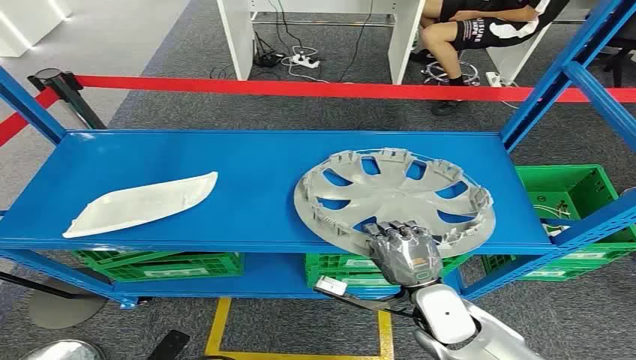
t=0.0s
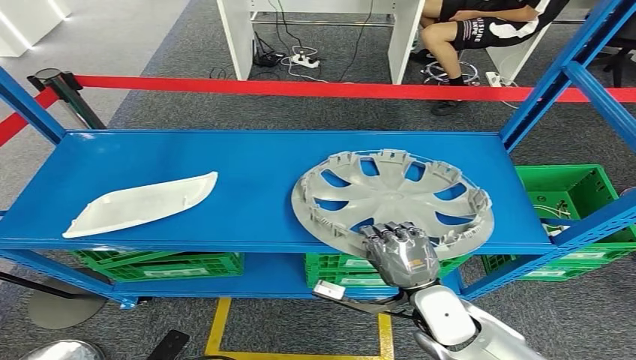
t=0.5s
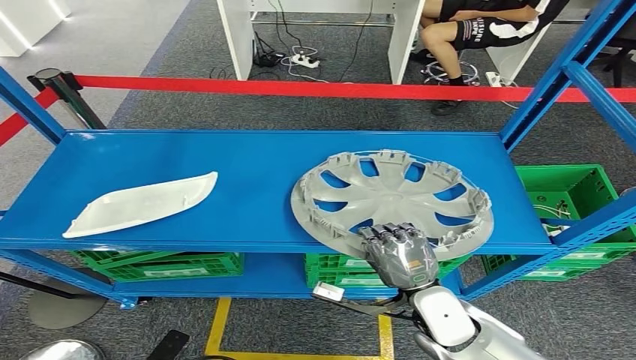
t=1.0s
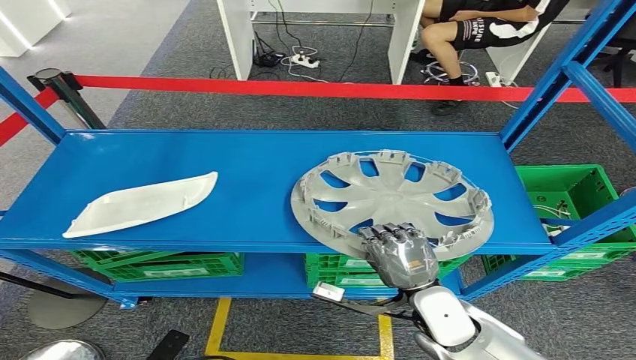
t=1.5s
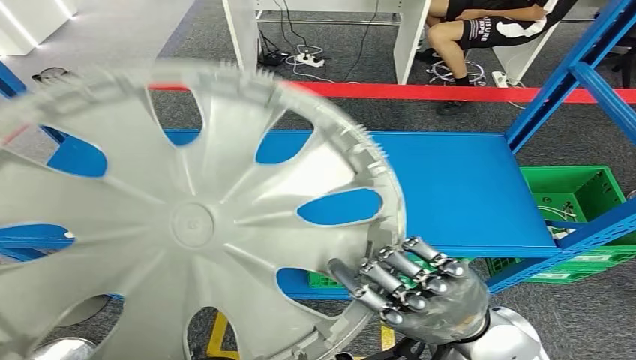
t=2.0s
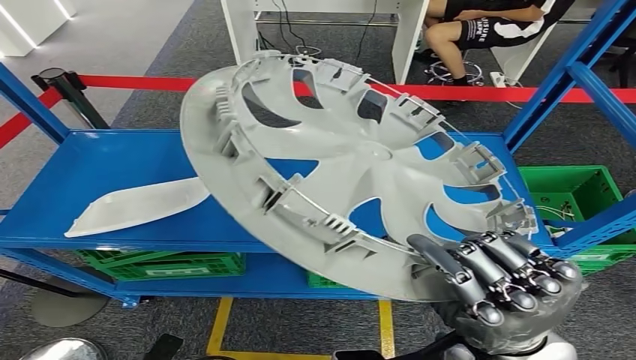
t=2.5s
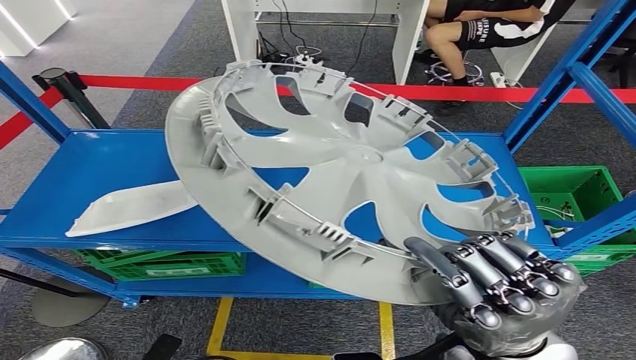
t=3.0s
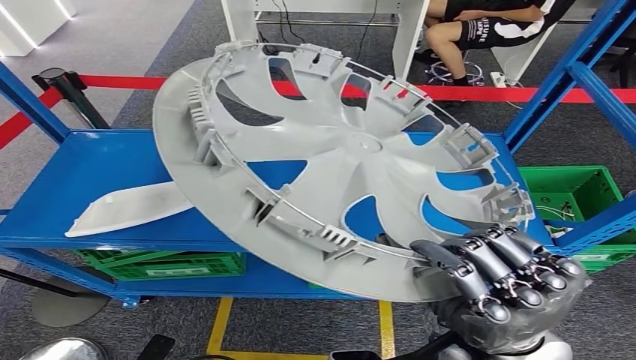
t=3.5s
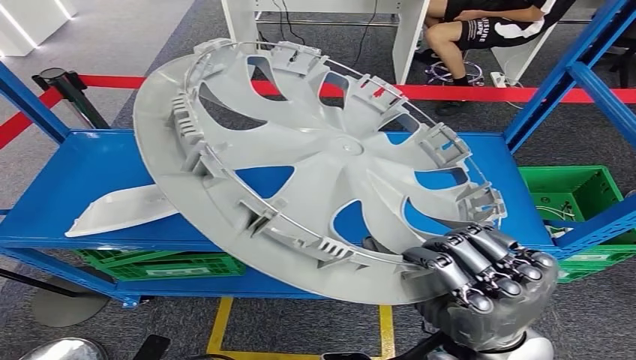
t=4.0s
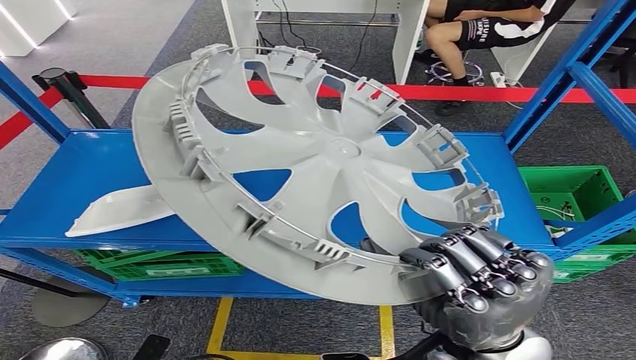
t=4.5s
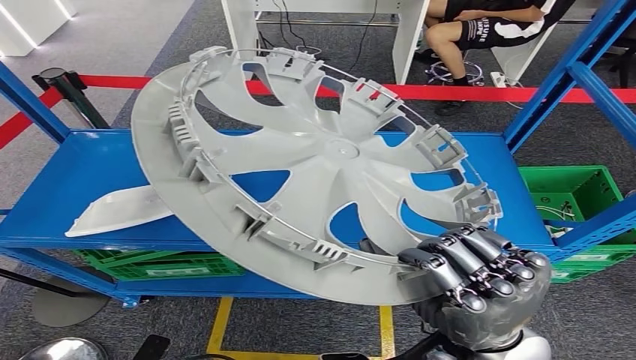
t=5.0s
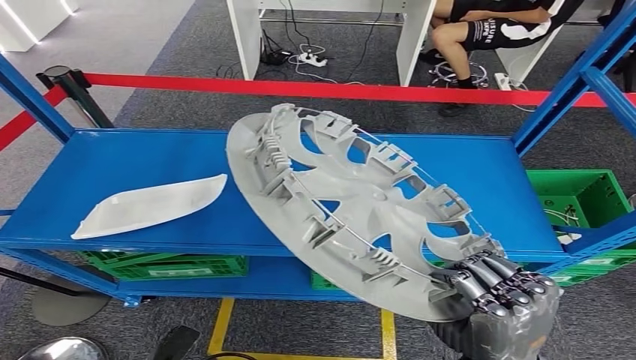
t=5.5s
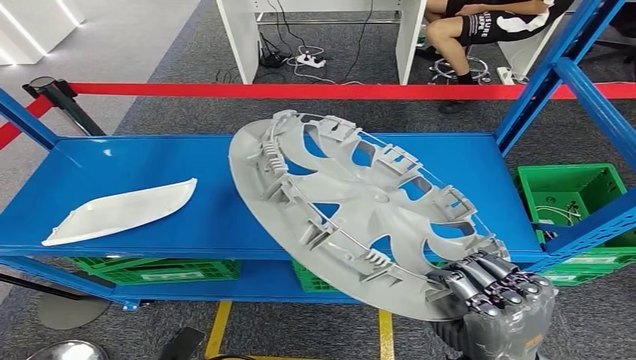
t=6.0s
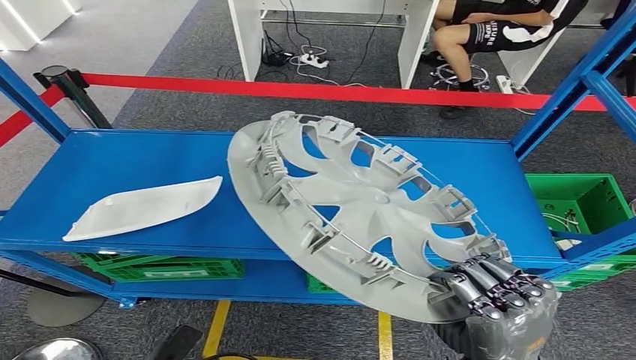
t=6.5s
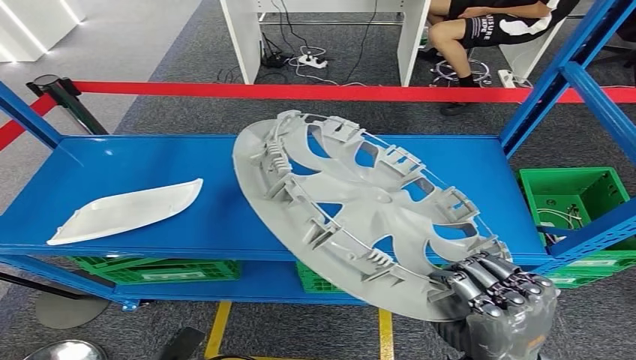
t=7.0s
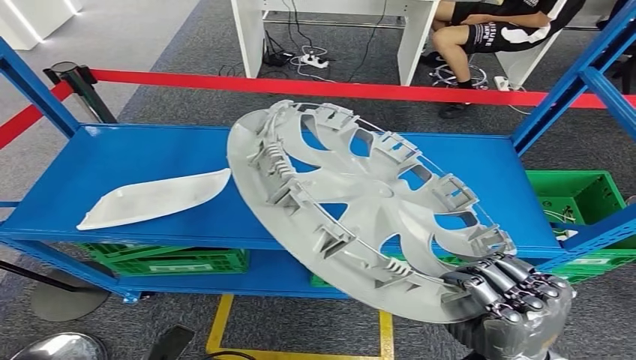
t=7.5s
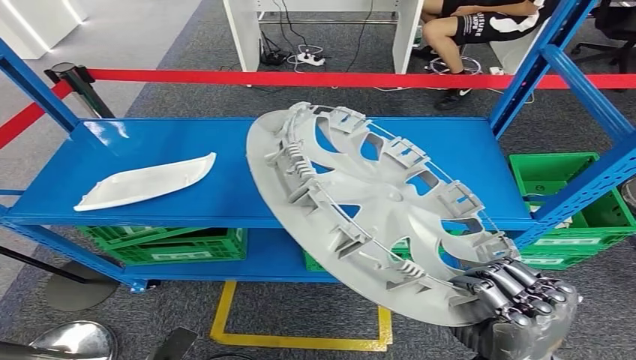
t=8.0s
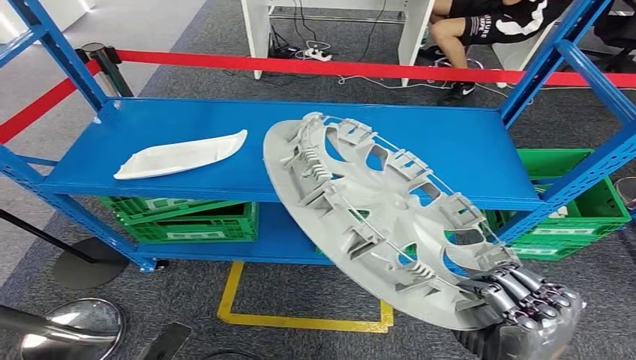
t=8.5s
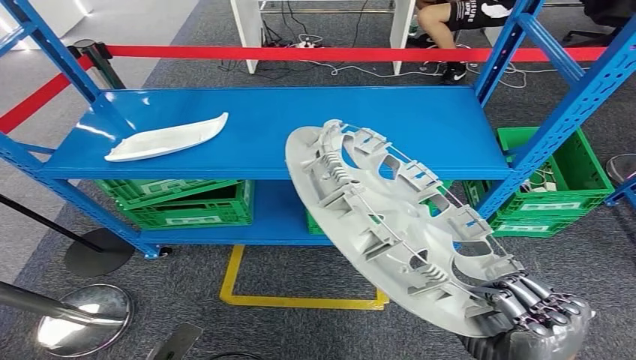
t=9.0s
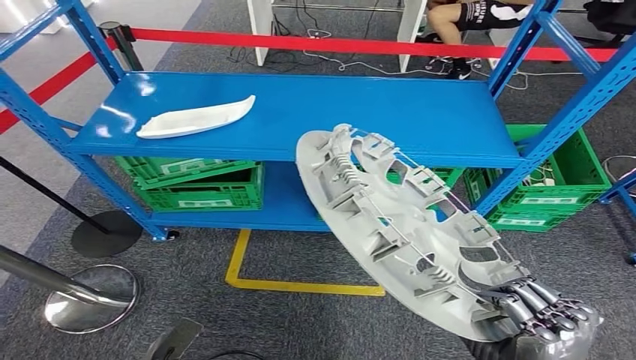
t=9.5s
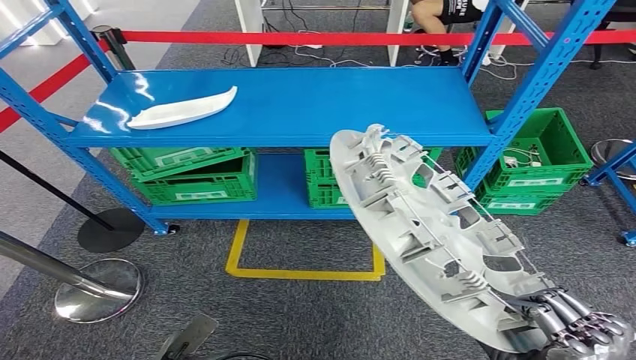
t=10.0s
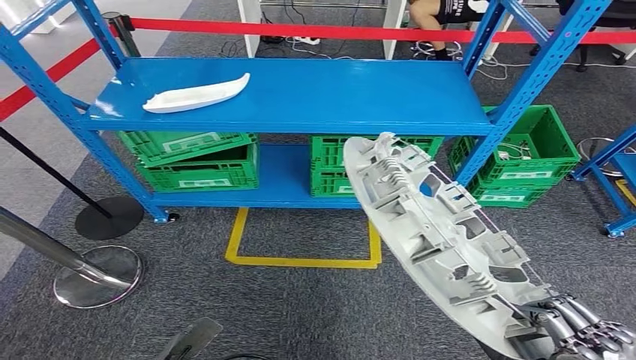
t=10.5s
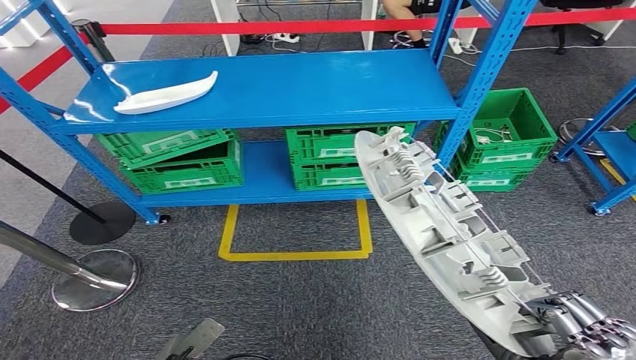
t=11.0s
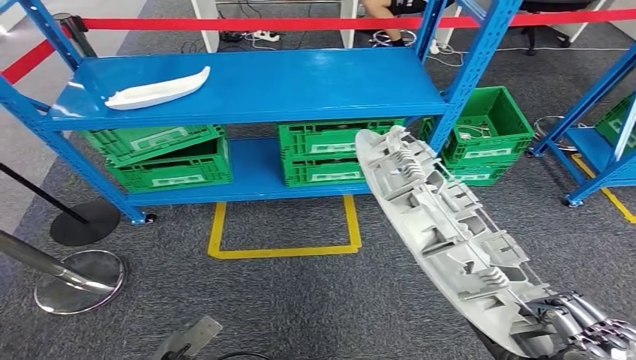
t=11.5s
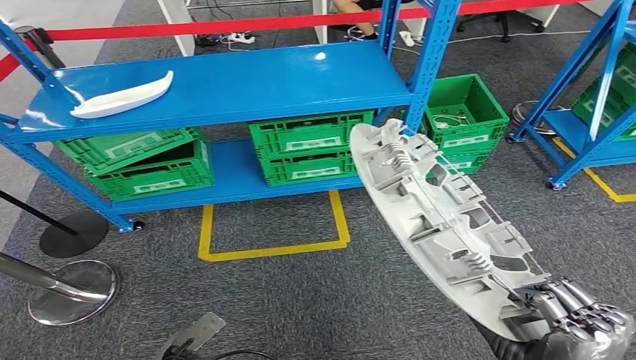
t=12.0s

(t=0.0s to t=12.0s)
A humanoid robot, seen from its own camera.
Step, t=0.0s - t=3.0s: Pick up the small component from the shelf.

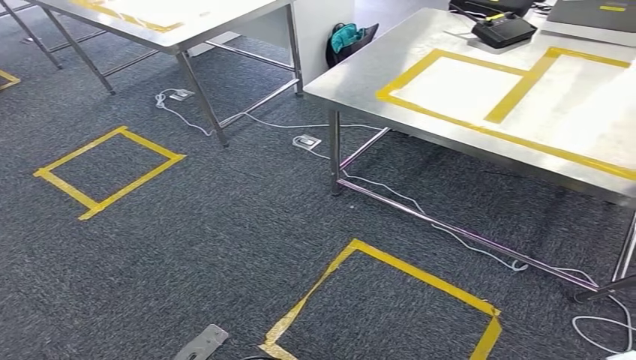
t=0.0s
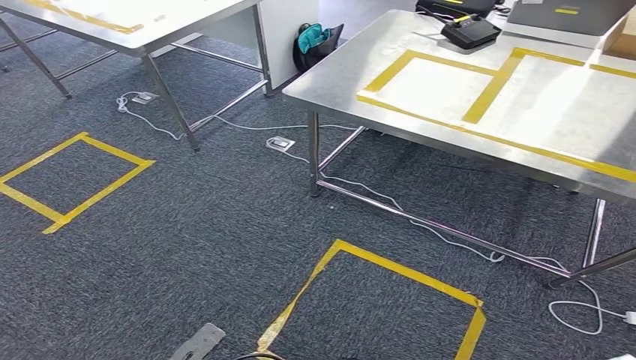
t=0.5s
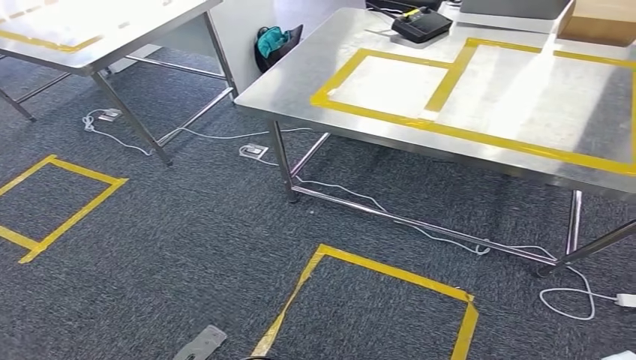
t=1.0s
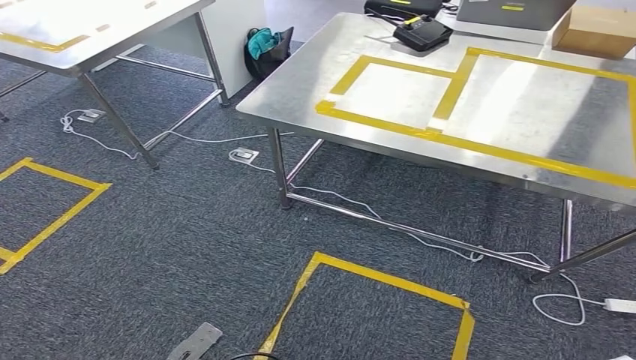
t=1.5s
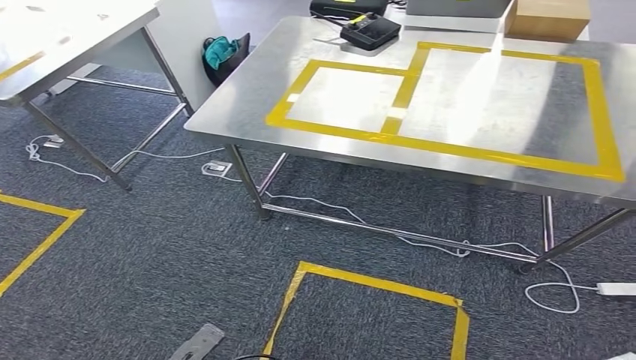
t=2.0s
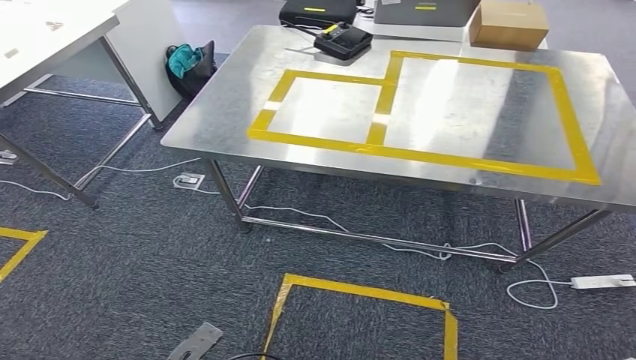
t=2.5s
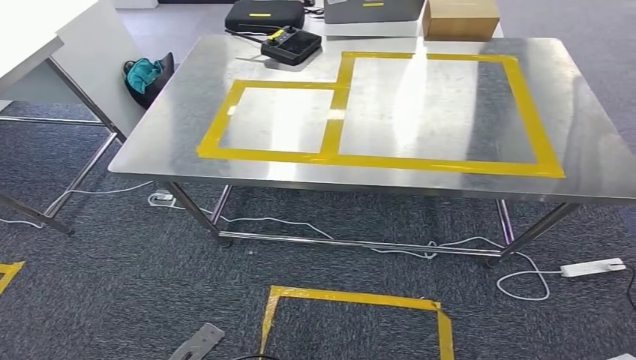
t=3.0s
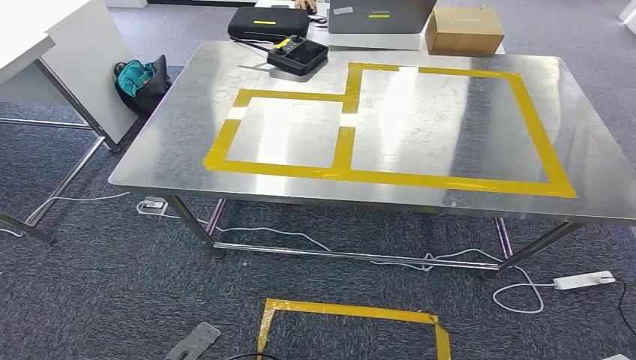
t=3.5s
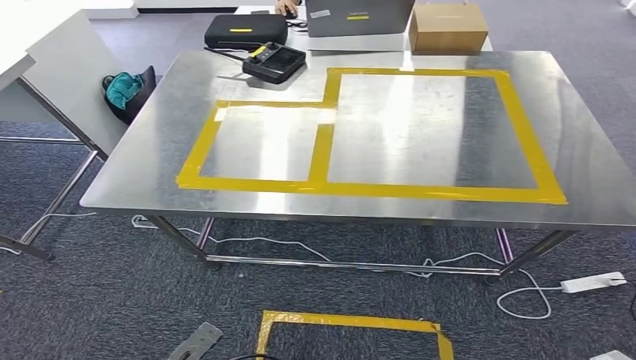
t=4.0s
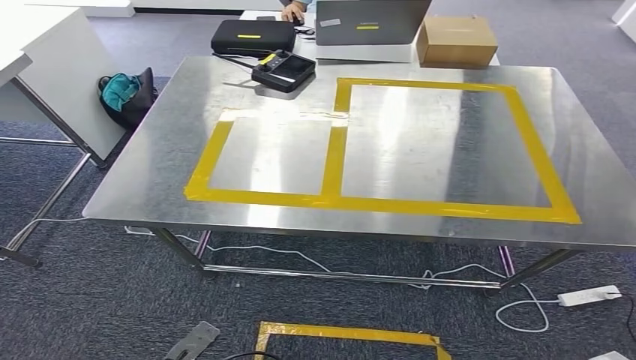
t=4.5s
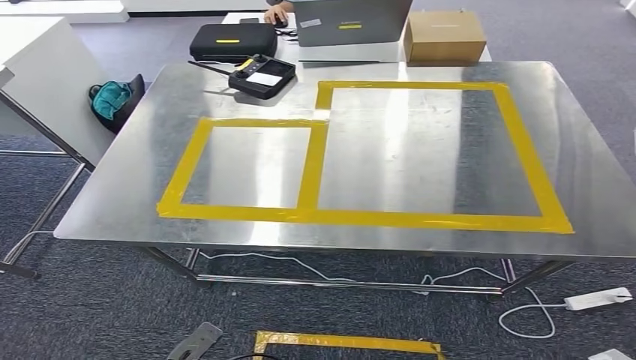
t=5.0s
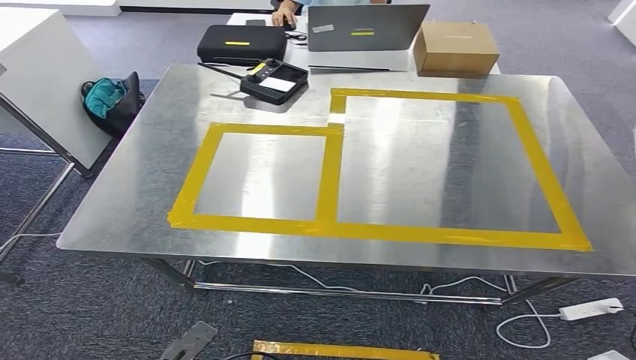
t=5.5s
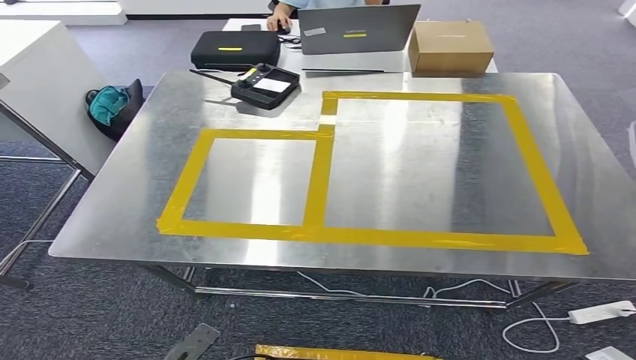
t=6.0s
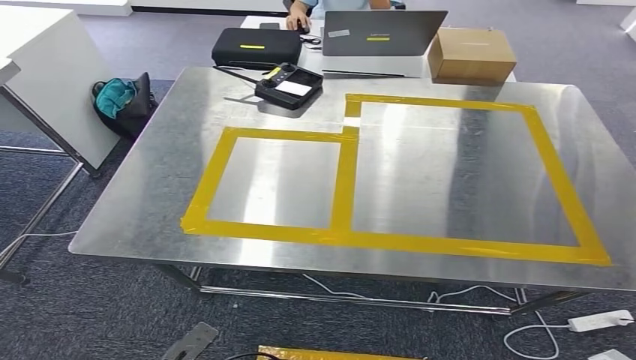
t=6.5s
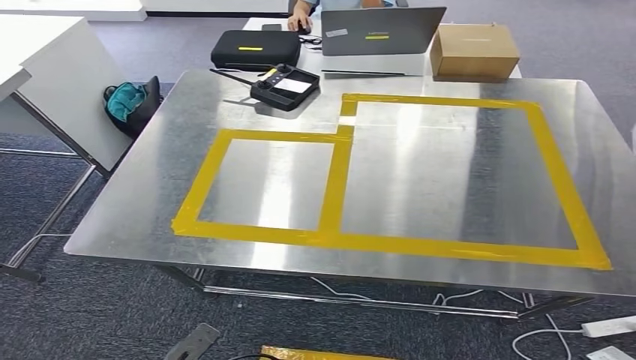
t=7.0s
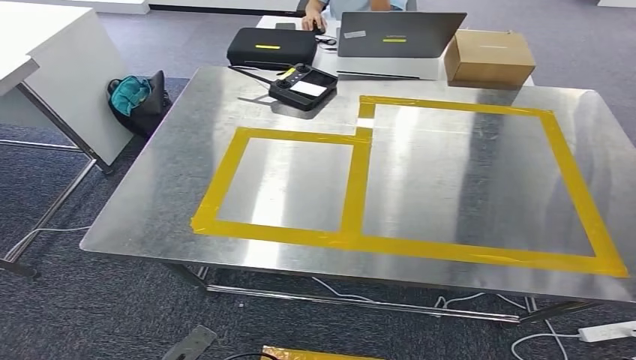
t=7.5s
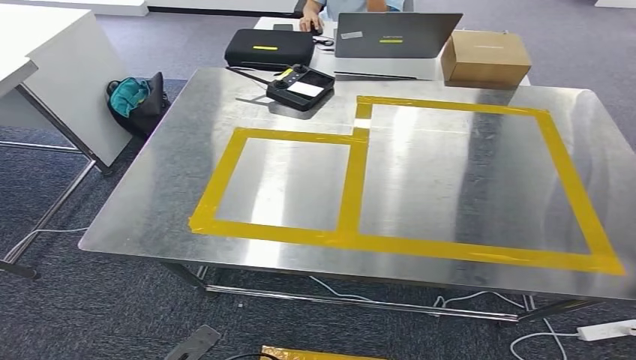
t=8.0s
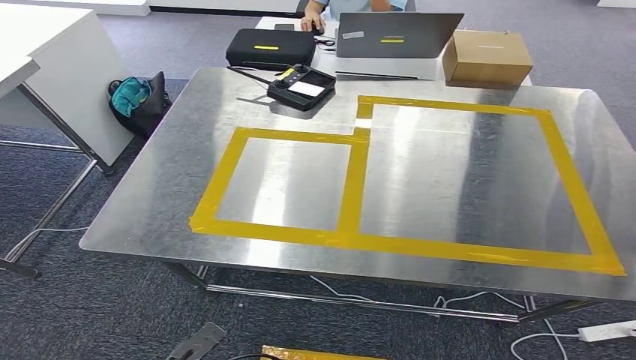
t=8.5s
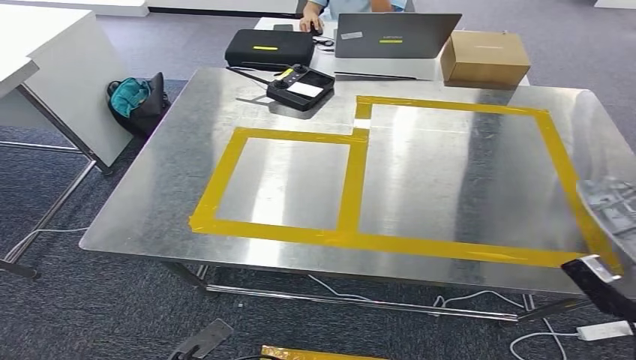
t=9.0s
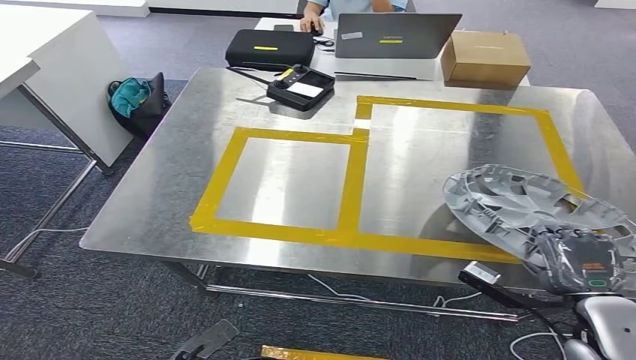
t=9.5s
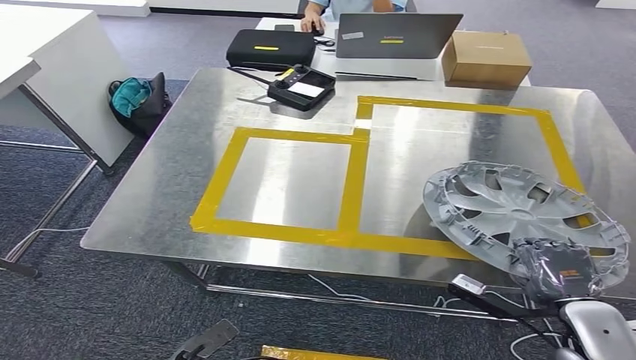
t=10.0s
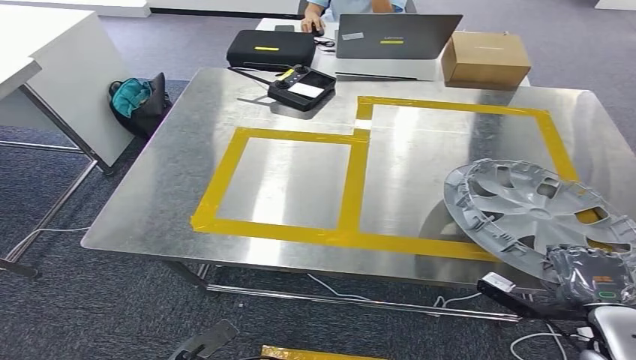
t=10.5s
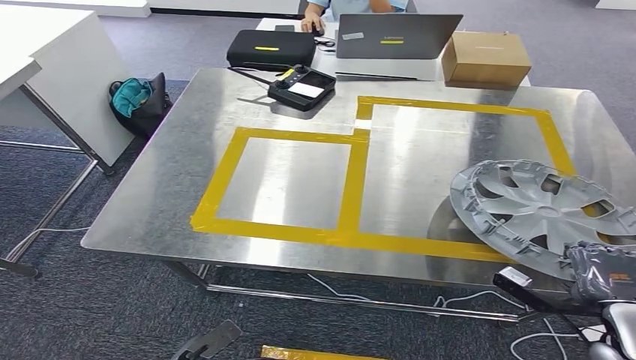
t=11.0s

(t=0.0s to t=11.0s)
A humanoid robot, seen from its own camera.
Step, t=0.0s - t=4.0s: Move the small component to the workbench.
t=7.5s - t=9.0s: The right hand heads forward and to the right, covering roughly 15 cm.
t=9.0s - t=11.0s: The right hand heads downward and forward, covering roughly 10 cm.
